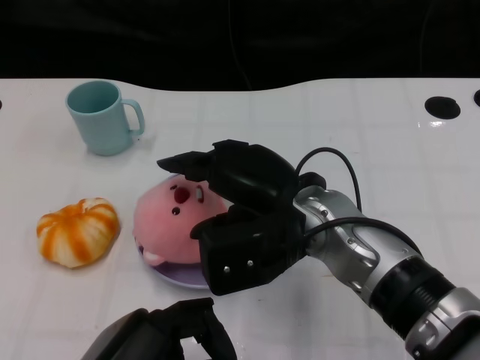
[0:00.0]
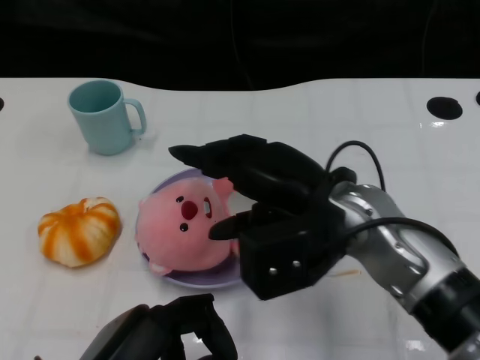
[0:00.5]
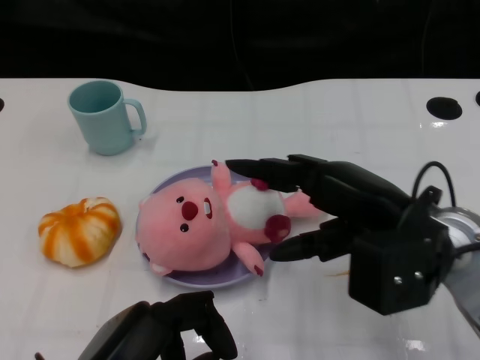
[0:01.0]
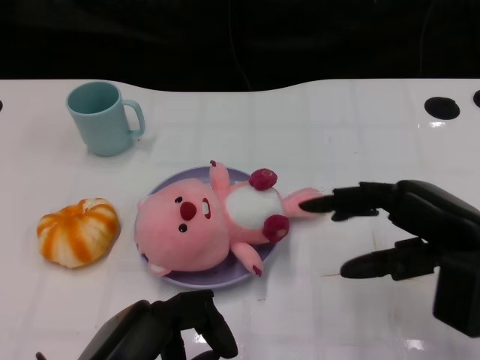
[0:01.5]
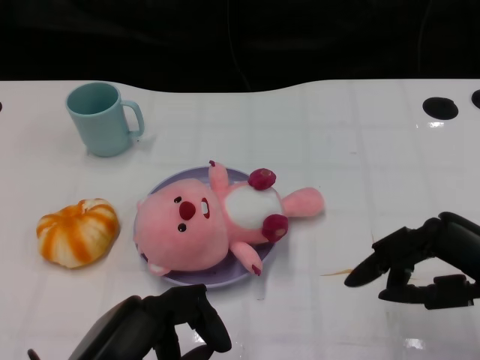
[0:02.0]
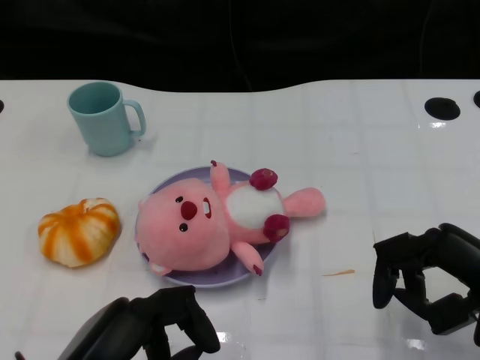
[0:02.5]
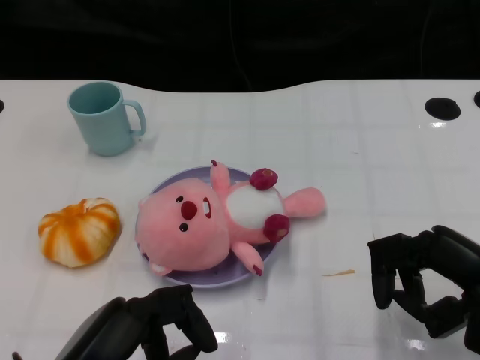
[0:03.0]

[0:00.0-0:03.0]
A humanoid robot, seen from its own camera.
Task of the whole recording: Pick up the doll on the other side of the plate and place it into the plate.
0:00.0 to 0:01.5: The right hand heads to the right, covering roughly 15 cm.
0:01.5 to 0:03.0: The right hand changes place by approximately 5 cm.

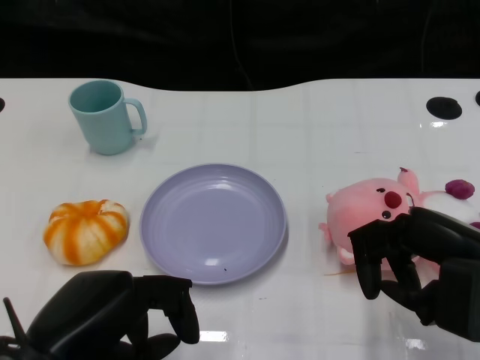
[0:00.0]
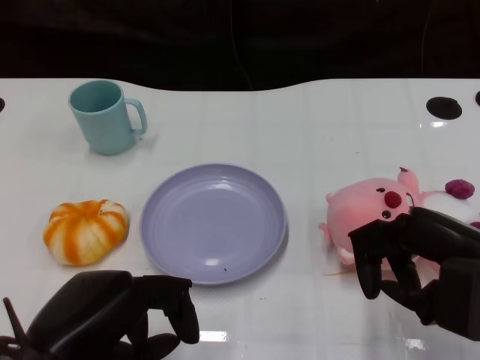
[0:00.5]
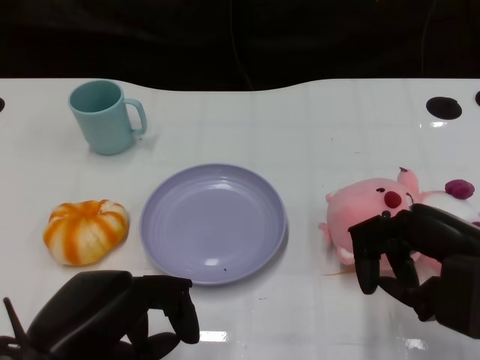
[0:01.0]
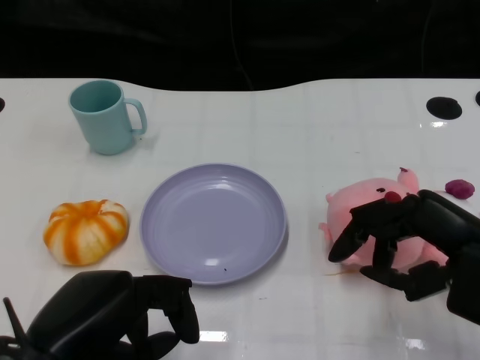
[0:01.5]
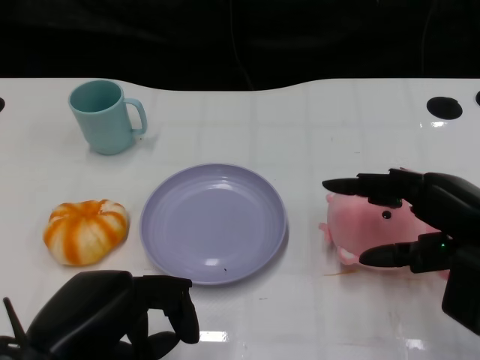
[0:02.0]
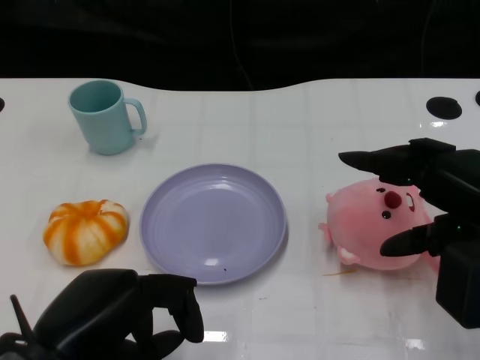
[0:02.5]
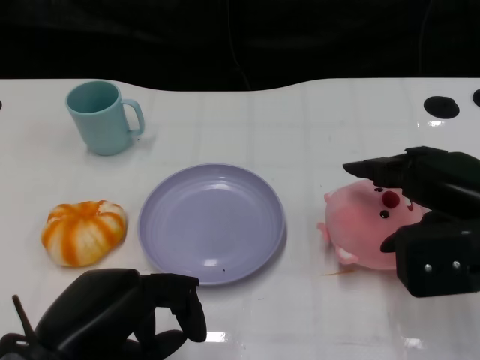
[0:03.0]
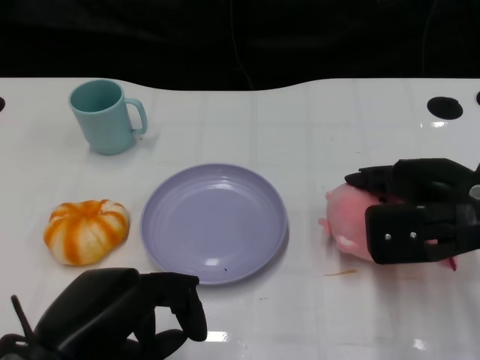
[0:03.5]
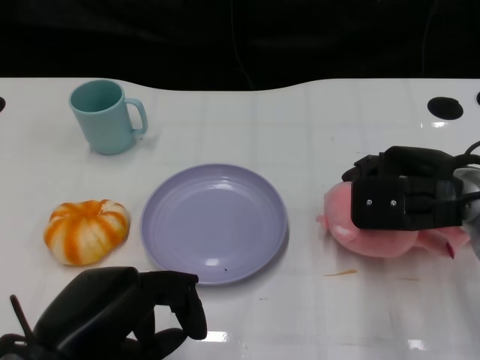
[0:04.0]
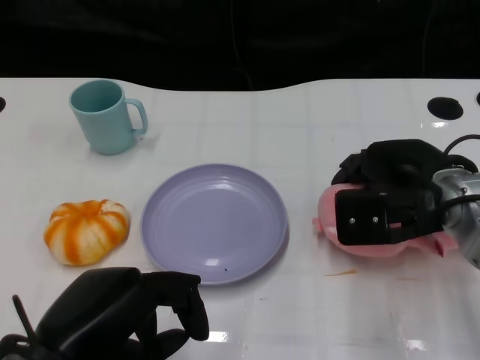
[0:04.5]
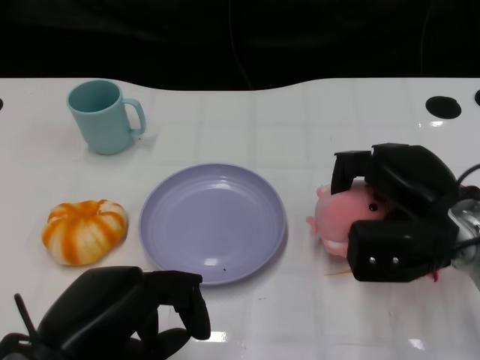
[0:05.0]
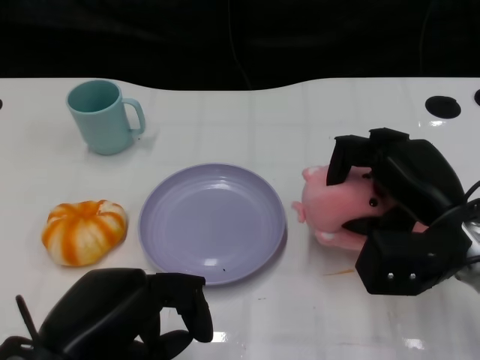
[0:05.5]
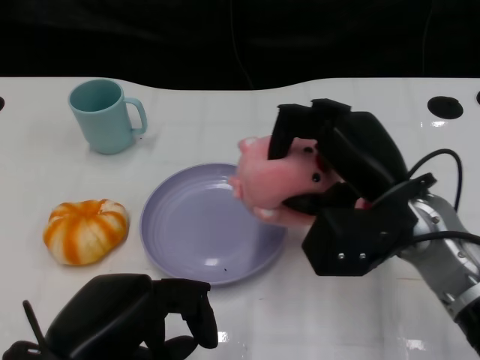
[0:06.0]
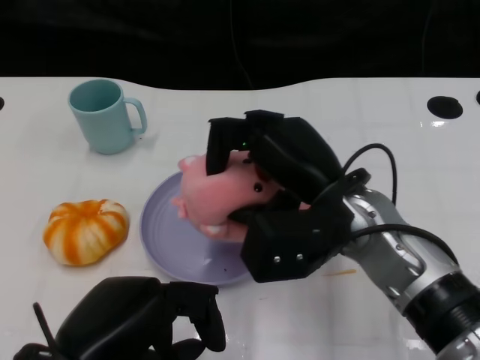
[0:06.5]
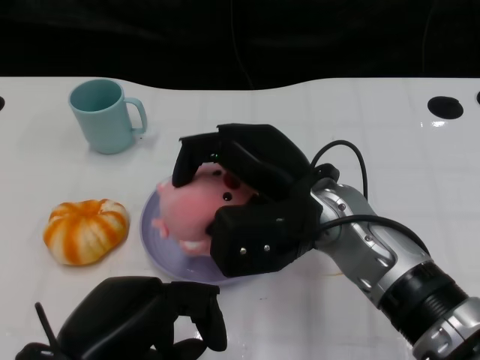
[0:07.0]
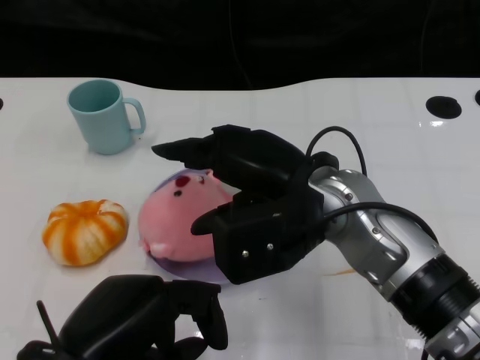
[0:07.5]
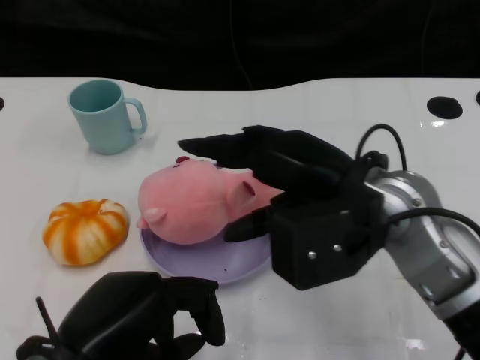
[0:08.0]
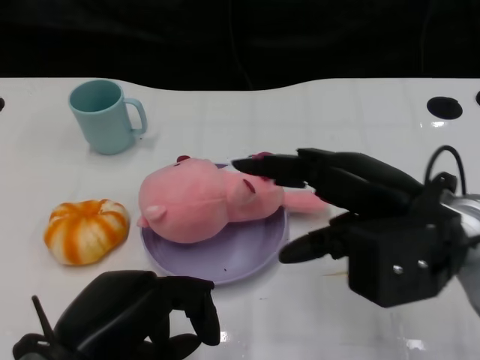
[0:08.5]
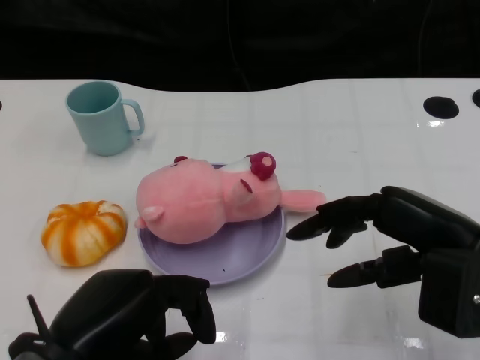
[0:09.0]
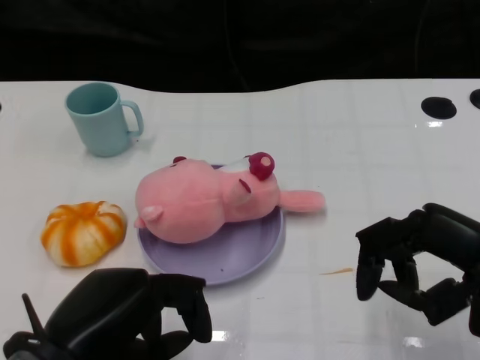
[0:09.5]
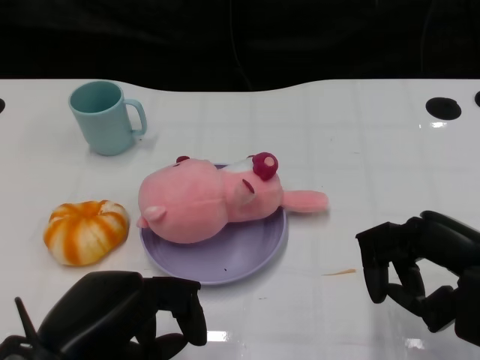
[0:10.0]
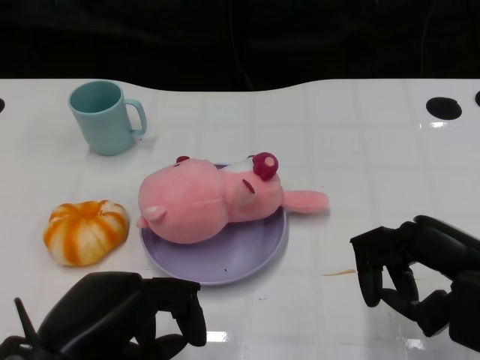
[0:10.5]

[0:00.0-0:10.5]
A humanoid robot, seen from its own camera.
Task of the whole recording: Pick up the doll on the other side of the plate and place it into the plate.
Step, 0:01.0 to 0:06.0: Grasp the pink doll with the right gripper.
Step, 0:06.5 to 0:08.0: Place the pink doll into the plate with the right gripper.
0:02.0 to 0:04.0: The right hand shifts some 10 cm forward.
0:04.0 to 0:06.5: The right hand goes some 10 cm to the left.
0:06.5 to 0:08.5: The right hand shifts approximately 5 cm to the right.
0:08.5 to 0:10.5: The right hand moves to the right, approximately 10 cm.

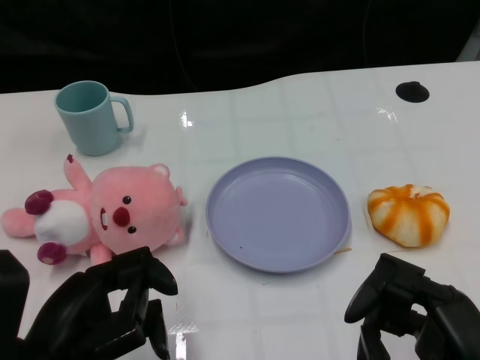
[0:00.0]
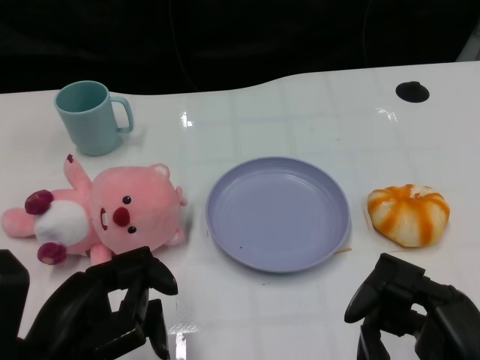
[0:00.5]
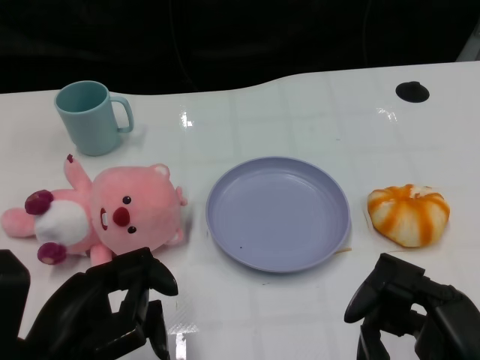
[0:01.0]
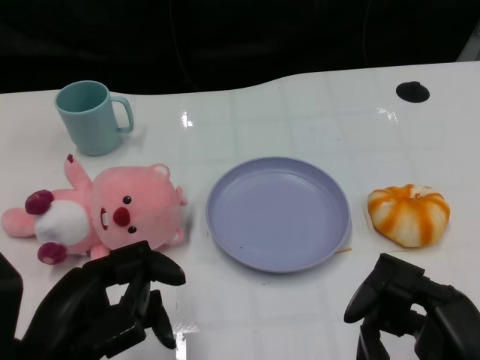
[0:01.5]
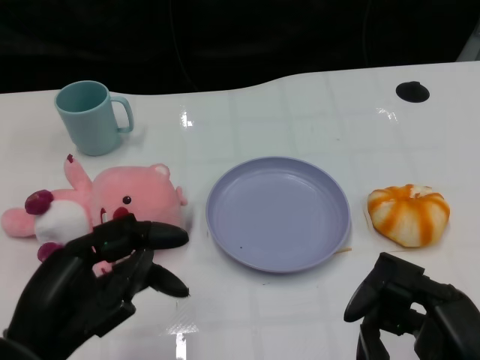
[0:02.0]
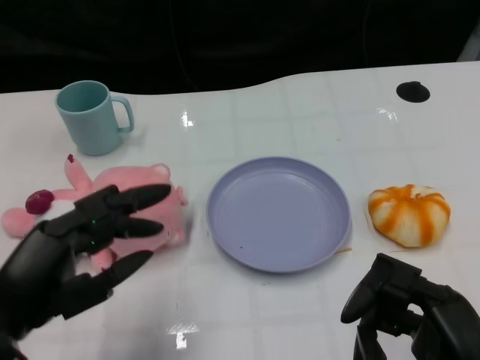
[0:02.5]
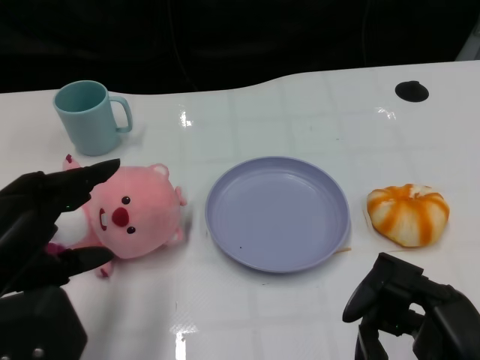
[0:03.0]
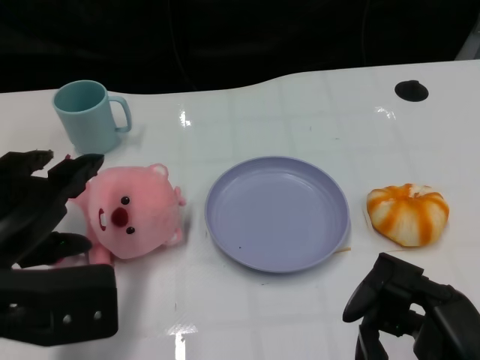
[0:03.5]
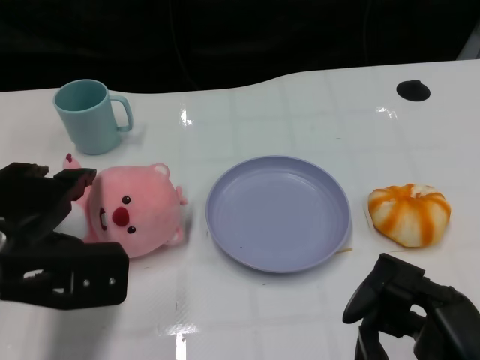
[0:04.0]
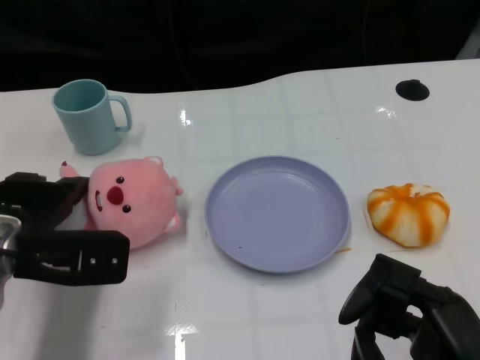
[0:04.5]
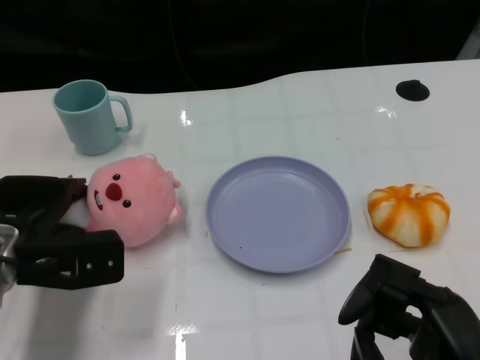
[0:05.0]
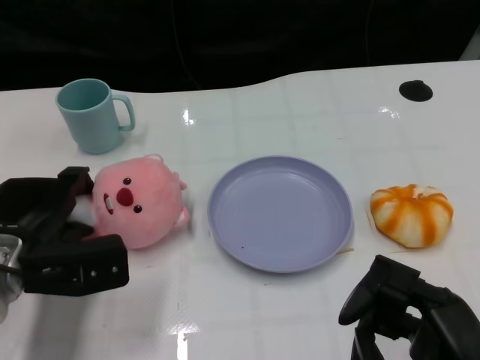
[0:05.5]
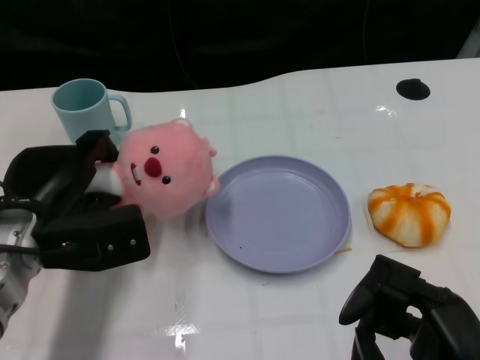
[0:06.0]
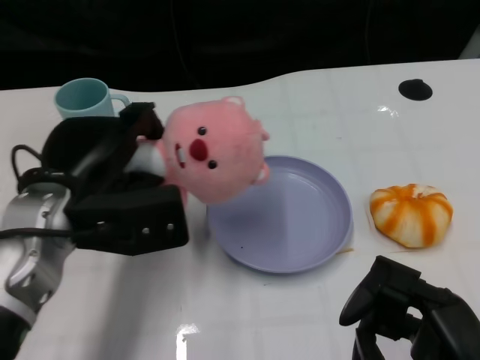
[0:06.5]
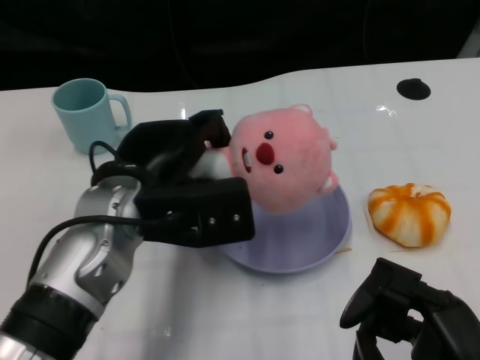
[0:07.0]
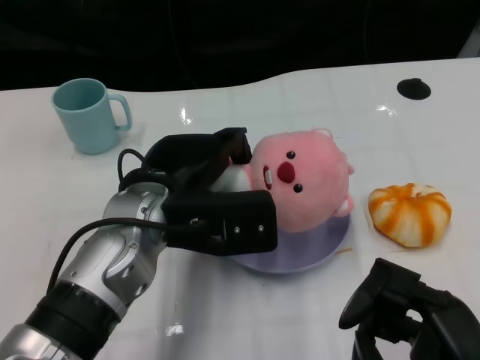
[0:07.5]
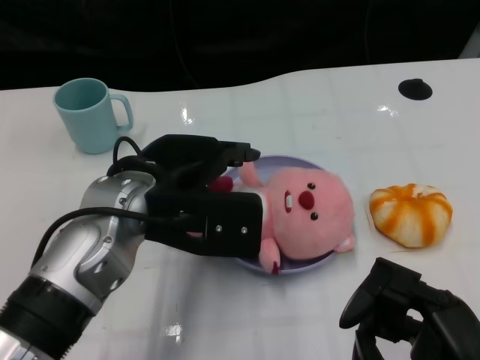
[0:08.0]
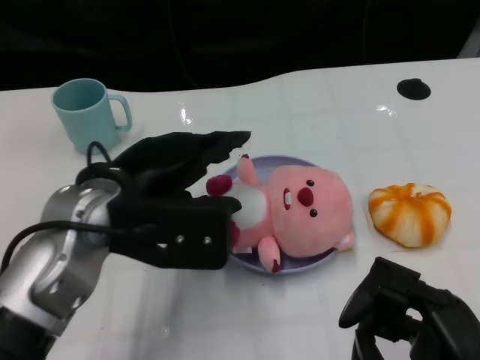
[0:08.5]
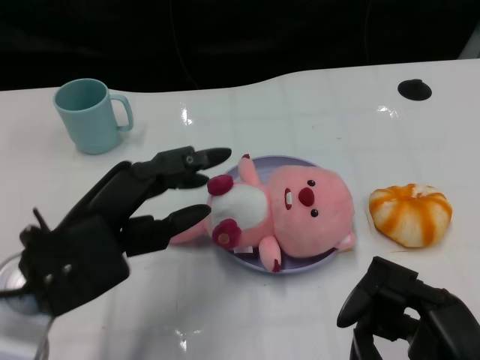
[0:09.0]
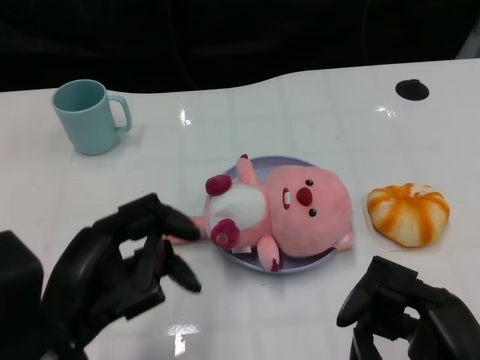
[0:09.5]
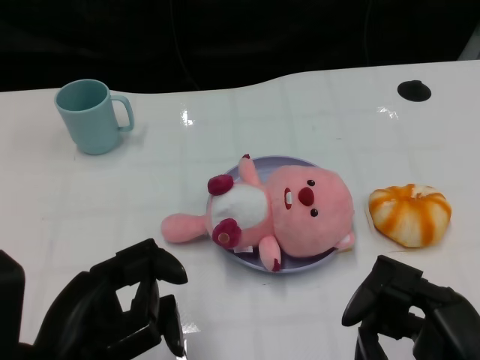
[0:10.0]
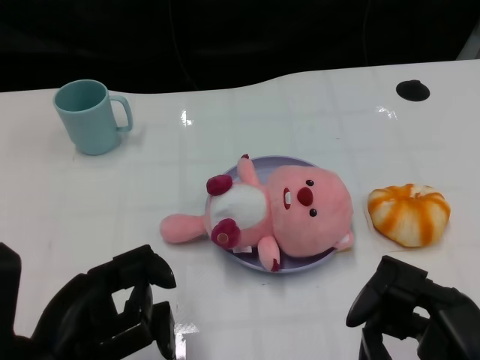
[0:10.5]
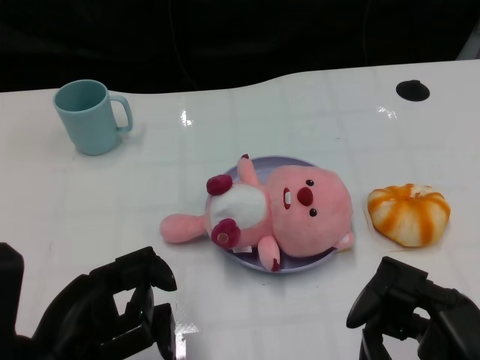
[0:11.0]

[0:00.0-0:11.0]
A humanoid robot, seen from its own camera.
Task of the whole recording: Pick up the doll on one side of the plate and place it into the plate.
Step, 0:01.5 to 0:05.5: Grasp the pink doll with the left gripper.
Step, 0:06.0 to 0:08.0: Place the pink doll into the plate with the left gripper.
0:02.0 to 0:03.5: The left hand is displaced upward and forward by roughly 5 cm.
0:03.5 to 0:05.5: The left hand goes about 15 cm downward and forward.
0:05.5 to 0:07.5: The left hand shifts roughly 15 cm to the right and upward.
0:07.5 to 0:09.0: The left hand goes about 10 cm to the left and backward.
0:09.0 to 0:11.0: The left hand travels backward by roughly 10 cm.

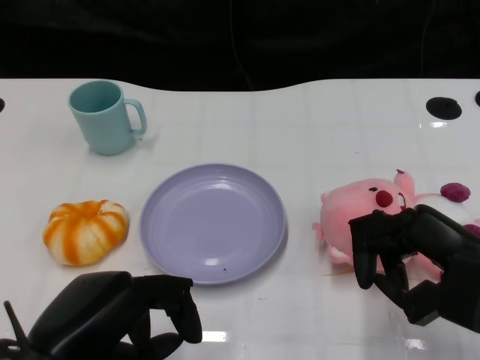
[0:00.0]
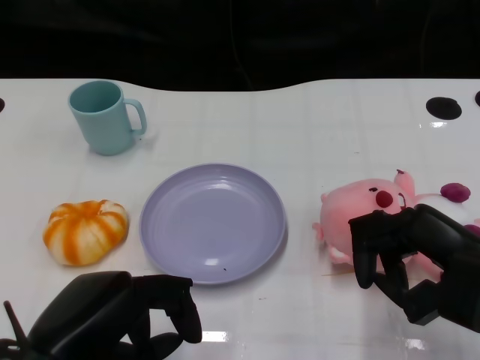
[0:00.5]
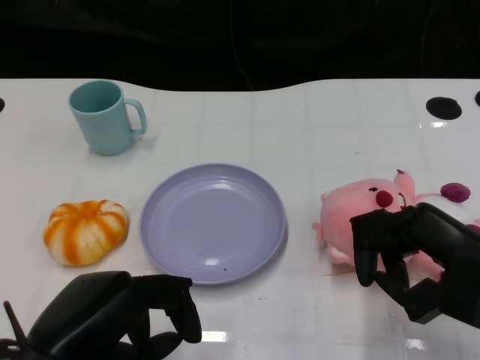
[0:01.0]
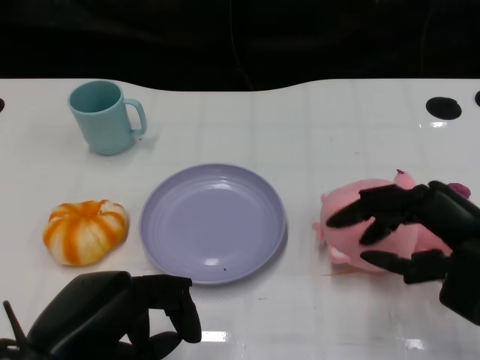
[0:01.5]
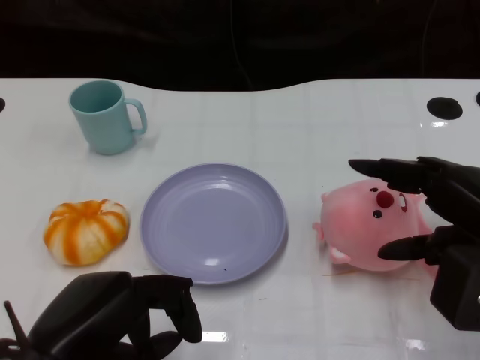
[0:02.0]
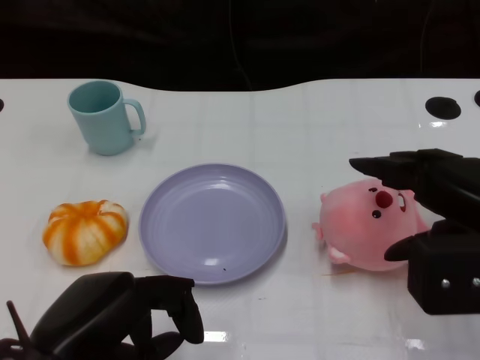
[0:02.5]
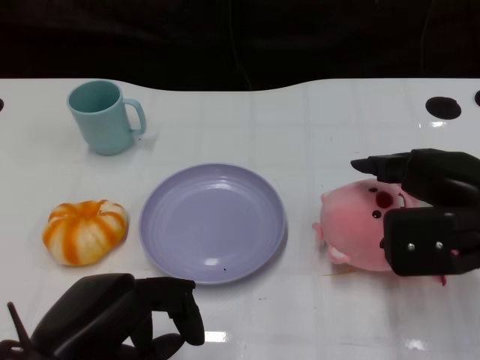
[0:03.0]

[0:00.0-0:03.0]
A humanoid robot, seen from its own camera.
Task of the whole recording: Pick up the doll on the other side of the plate and place it into the plate.
0:01.5 to 0:03.0: The right hand heads forward, covering roughly 5 cm.
